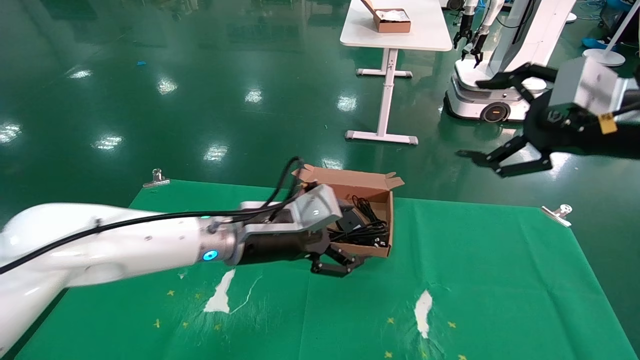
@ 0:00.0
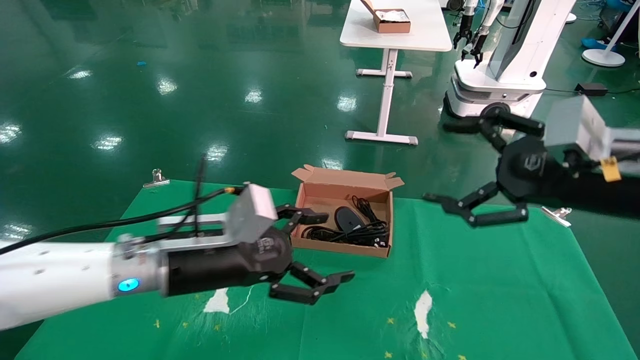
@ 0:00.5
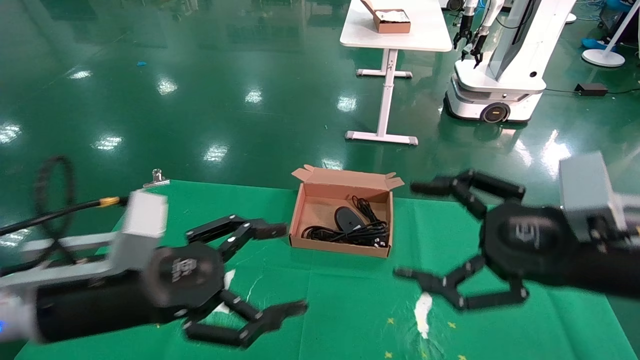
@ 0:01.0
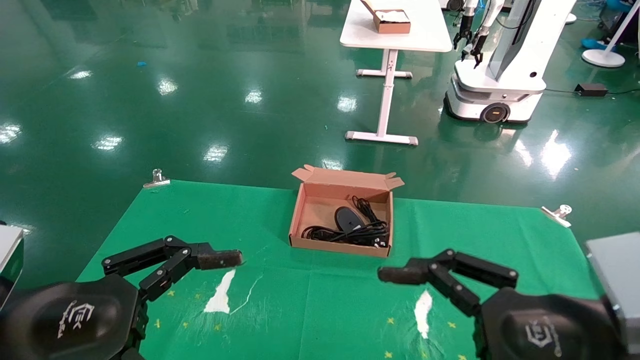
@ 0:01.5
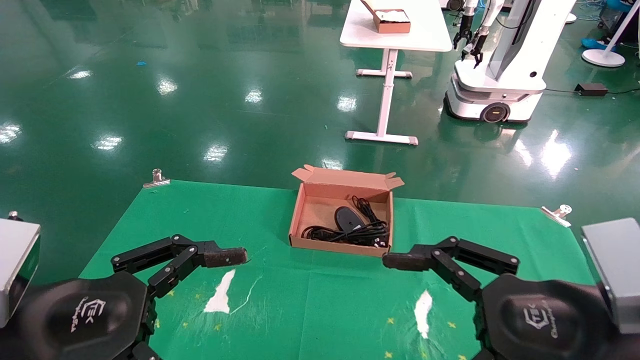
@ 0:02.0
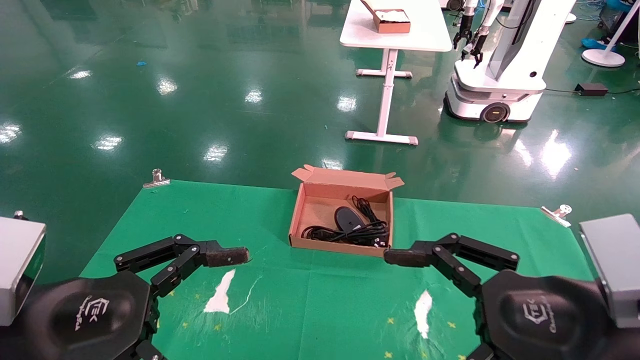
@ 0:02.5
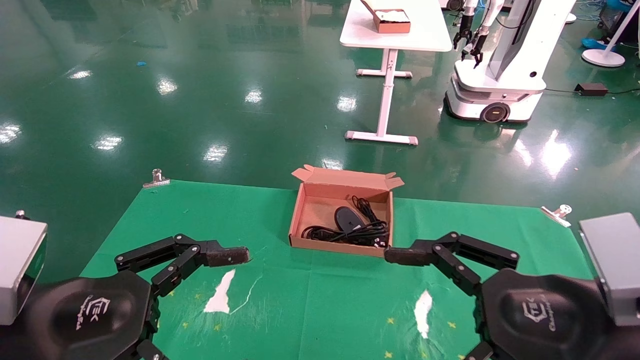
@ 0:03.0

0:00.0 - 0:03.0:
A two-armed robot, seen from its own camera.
0:00.0 - 0:01.5: The left gripper is displaced backward and to the left by some 25 cm. Meanwhile the right gripper shifts roughly 20 cm downward, backward and to the left.
0:01.5 - 0:03.0: Both grippers stay about where they are.
